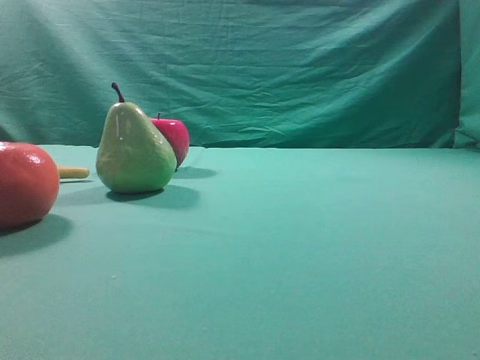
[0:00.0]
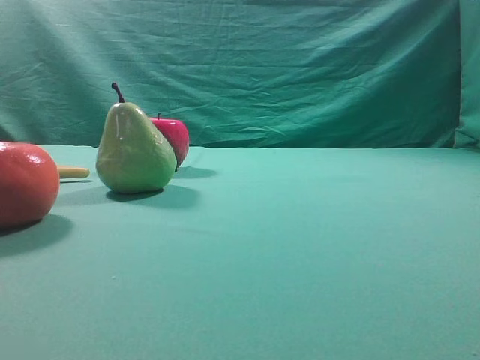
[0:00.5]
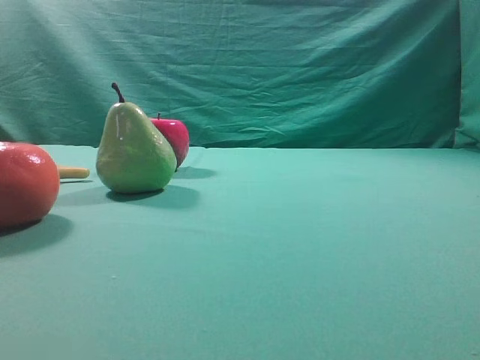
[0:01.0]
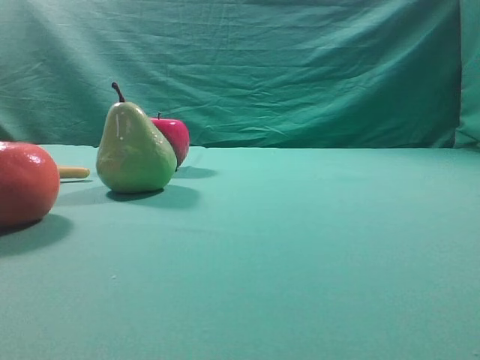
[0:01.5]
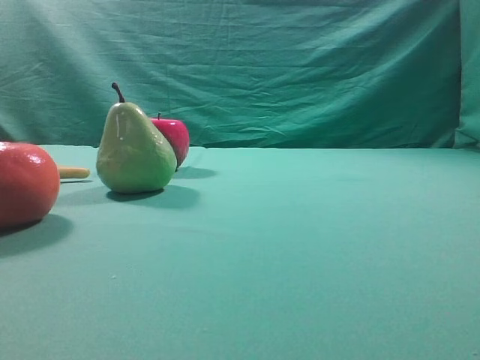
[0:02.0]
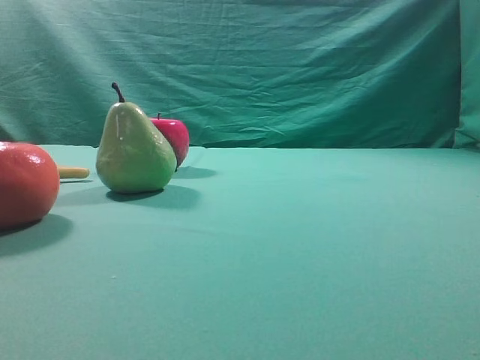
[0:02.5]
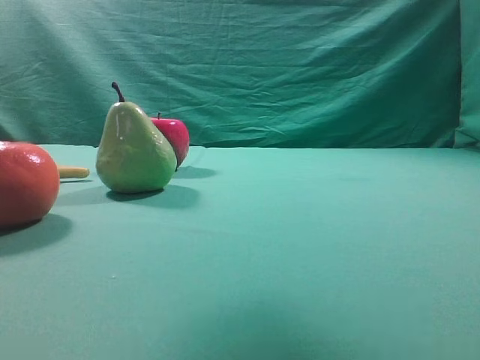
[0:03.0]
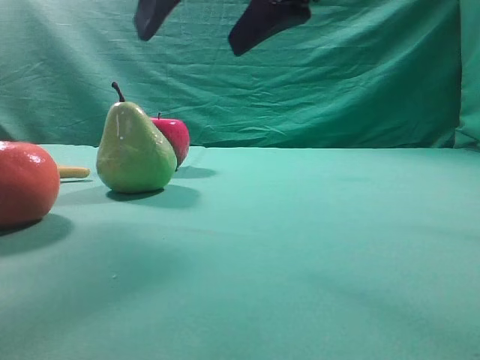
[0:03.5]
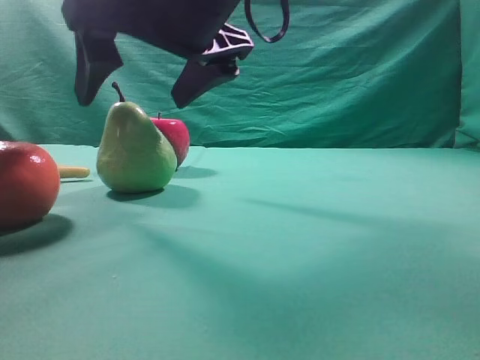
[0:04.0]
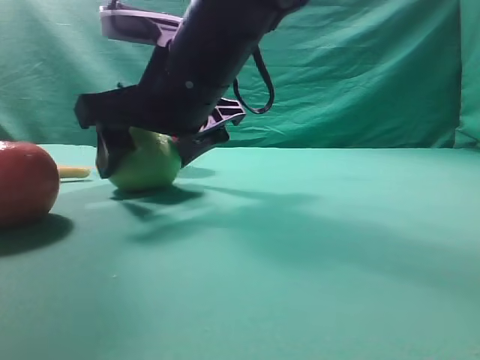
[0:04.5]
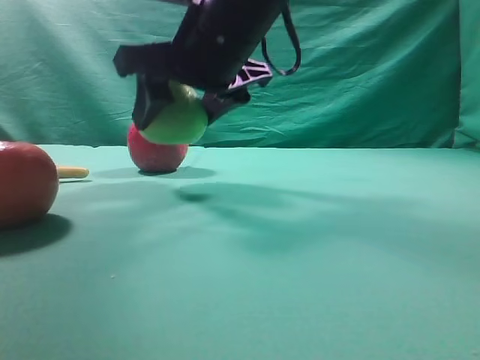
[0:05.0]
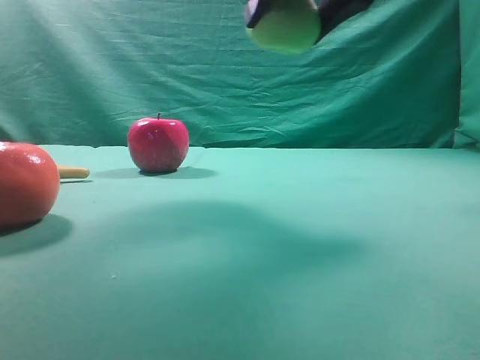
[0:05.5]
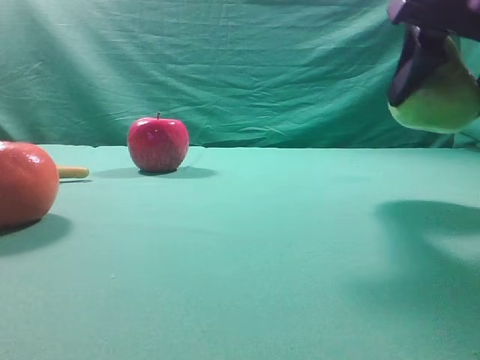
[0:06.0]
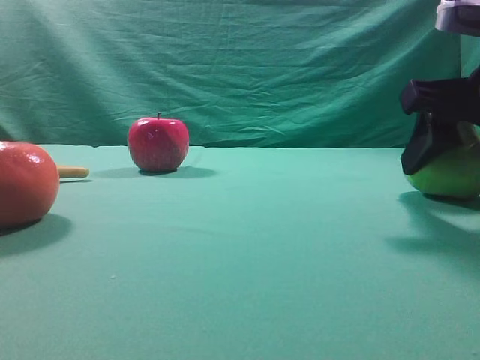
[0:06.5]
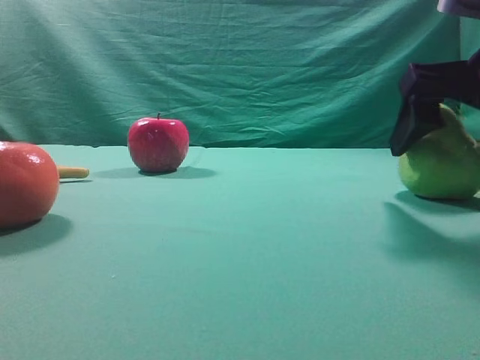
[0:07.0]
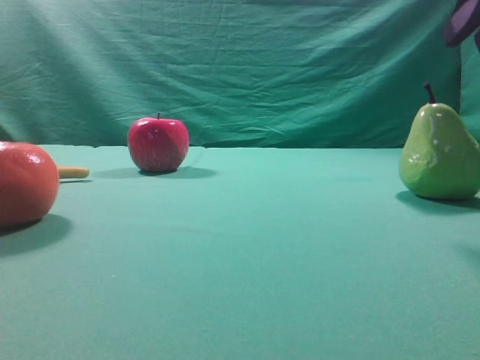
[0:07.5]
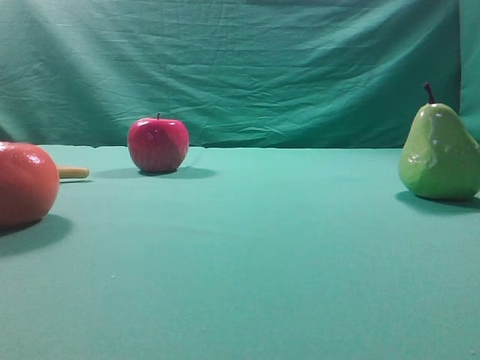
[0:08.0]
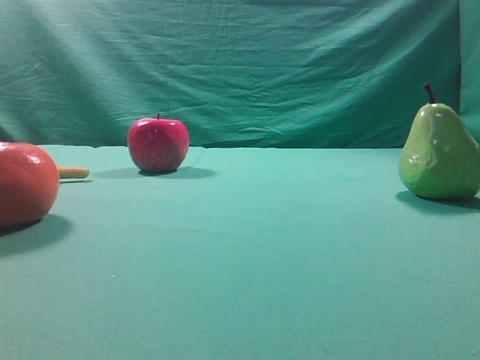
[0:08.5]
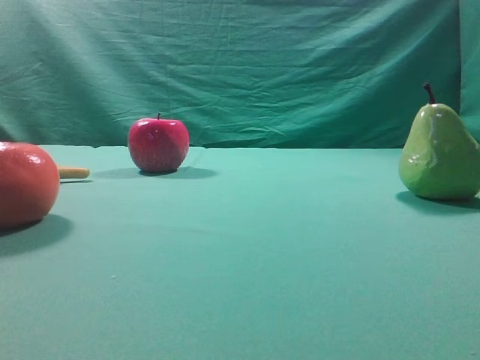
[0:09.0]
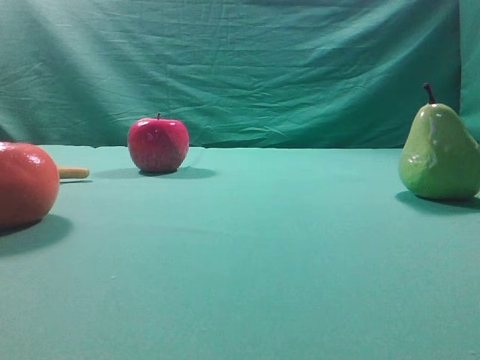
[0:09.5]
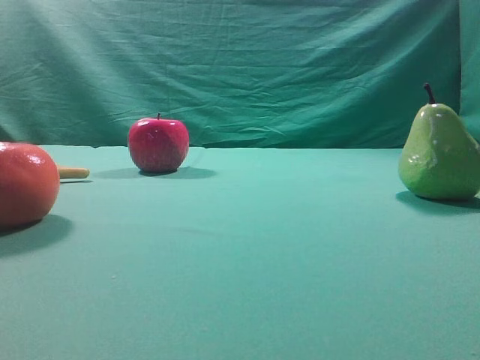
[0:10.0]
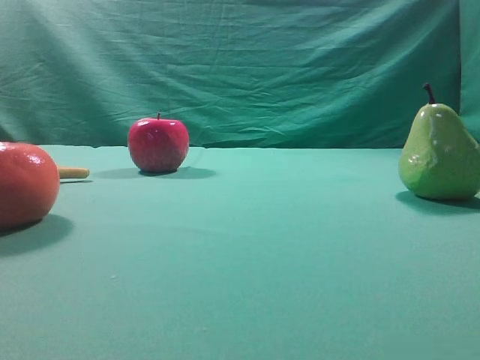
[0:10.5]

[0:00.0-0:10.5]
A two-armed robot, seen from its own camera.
Task of the whole recording: Grasp the pear and place it on one side of the table.
Step, 0:00.0 to 0:04.5: Grasp the high-fiber fruit.
Step, 0:05.0 to 0:07.0: Place it on the right side of the table.
